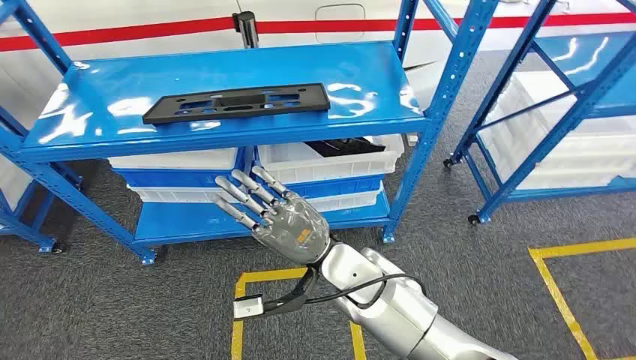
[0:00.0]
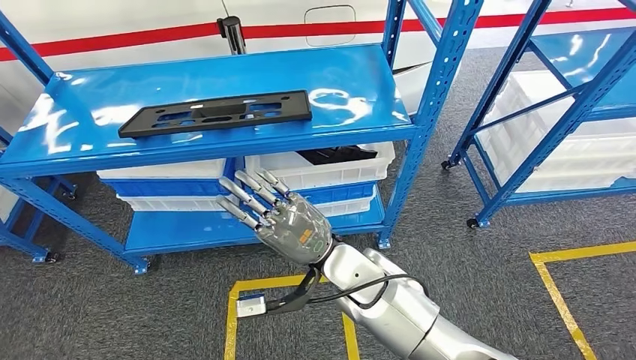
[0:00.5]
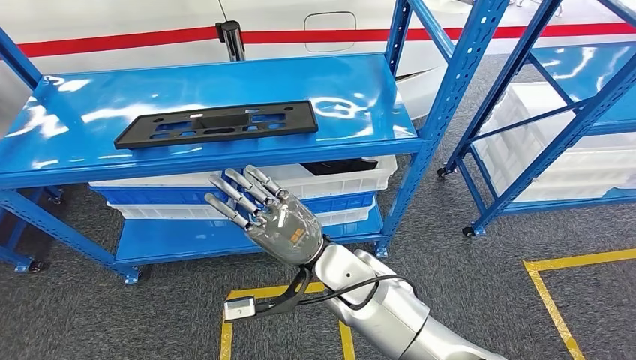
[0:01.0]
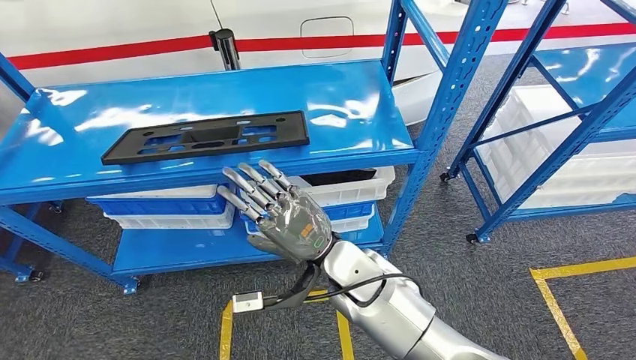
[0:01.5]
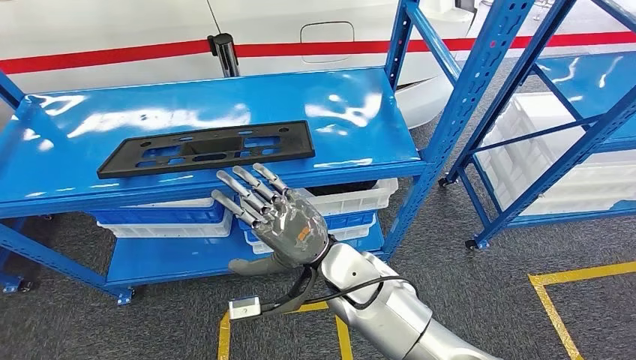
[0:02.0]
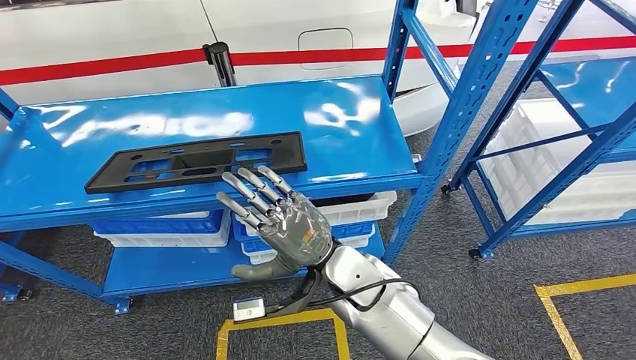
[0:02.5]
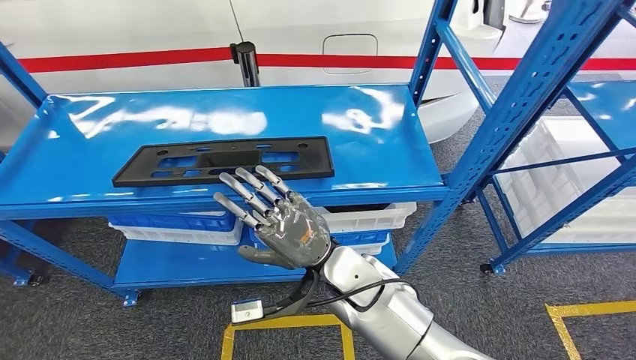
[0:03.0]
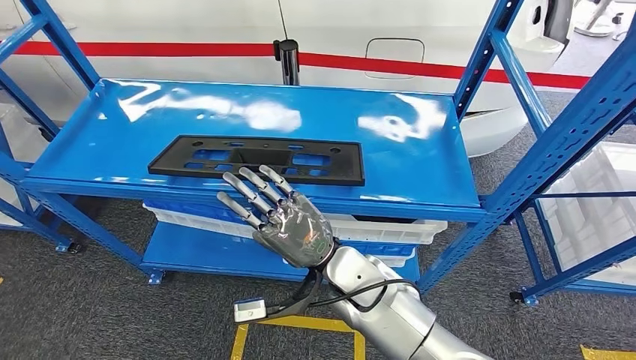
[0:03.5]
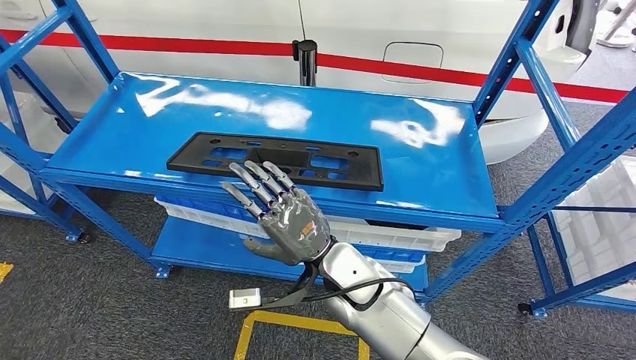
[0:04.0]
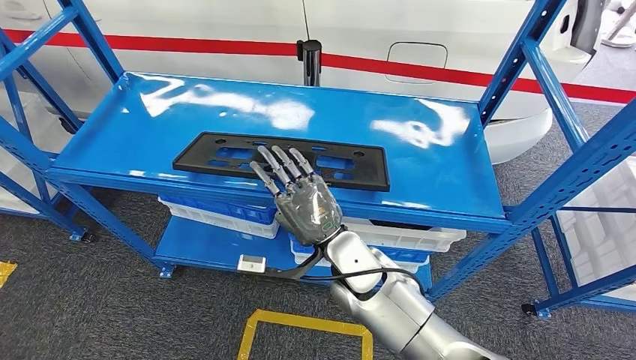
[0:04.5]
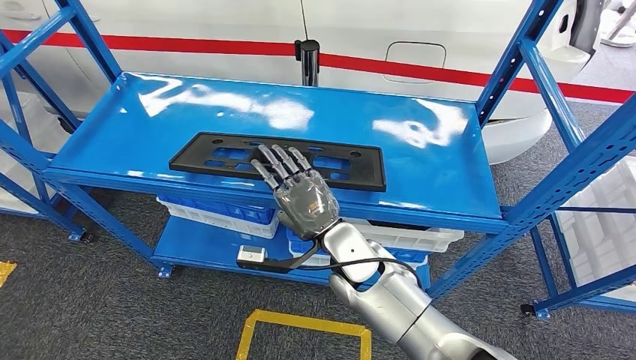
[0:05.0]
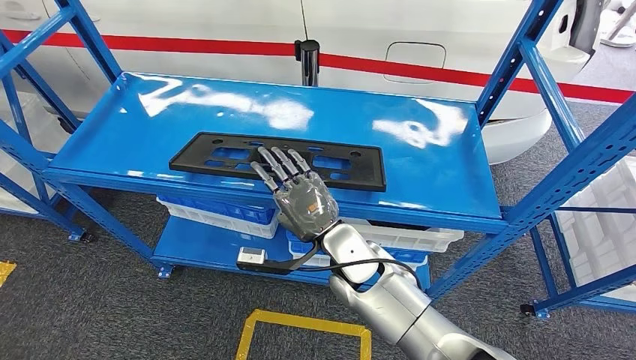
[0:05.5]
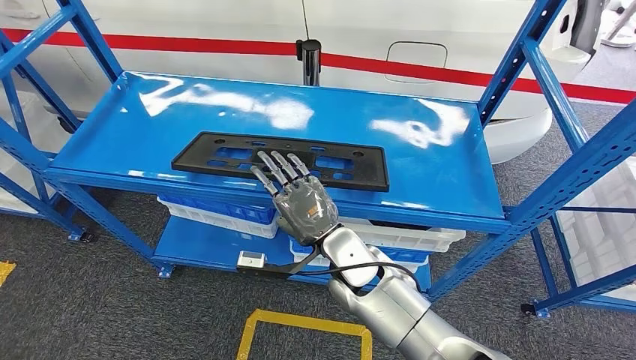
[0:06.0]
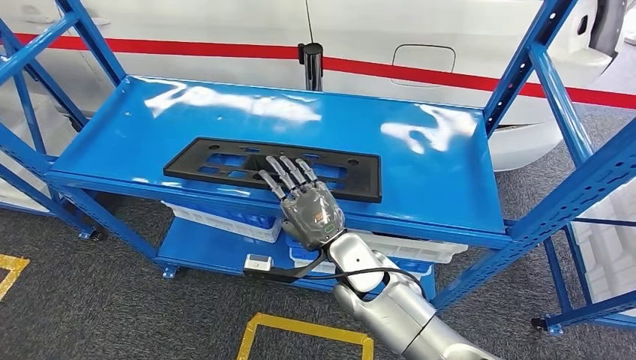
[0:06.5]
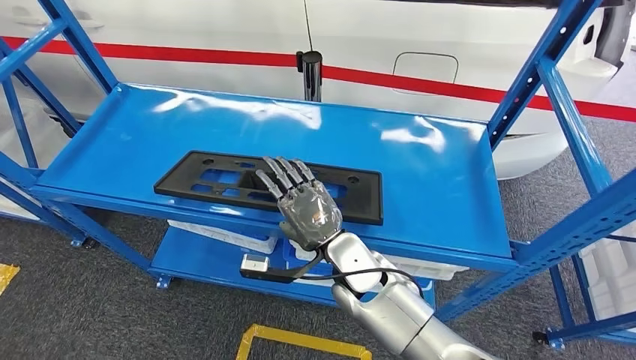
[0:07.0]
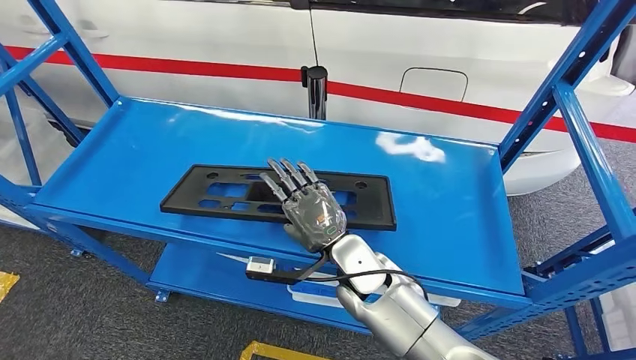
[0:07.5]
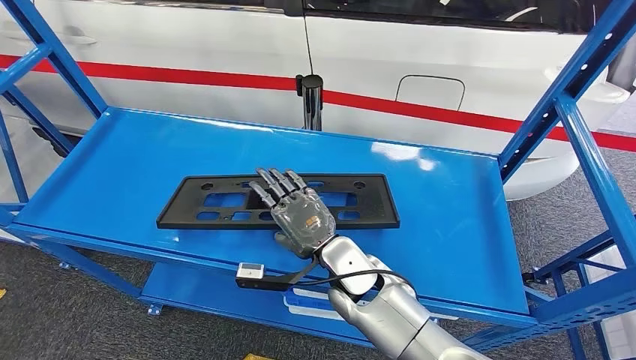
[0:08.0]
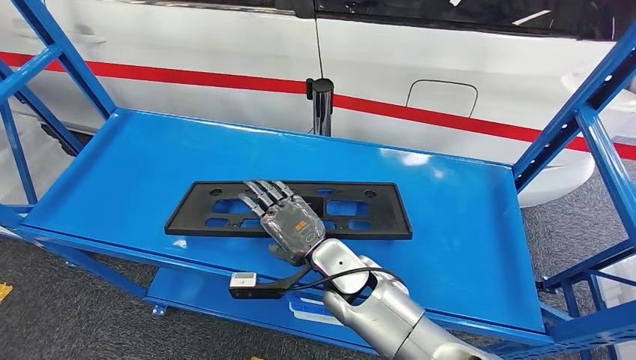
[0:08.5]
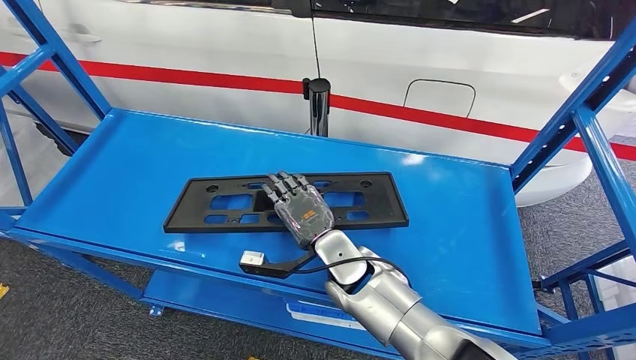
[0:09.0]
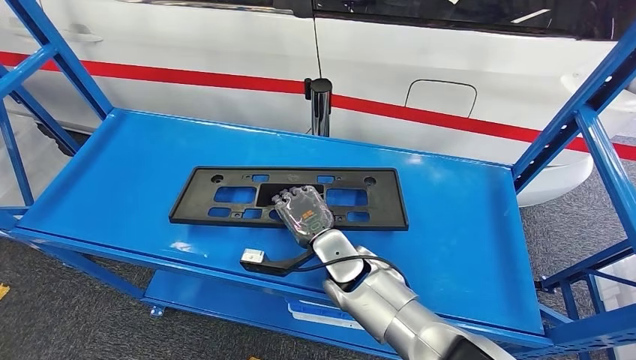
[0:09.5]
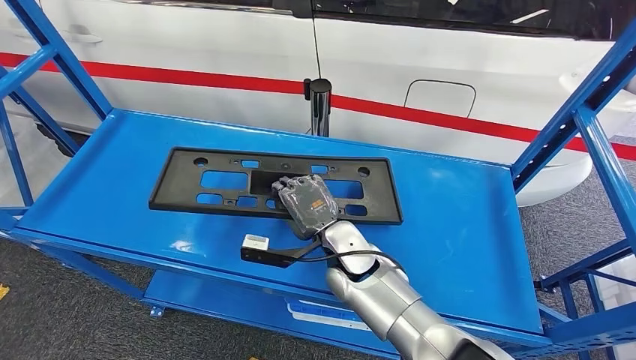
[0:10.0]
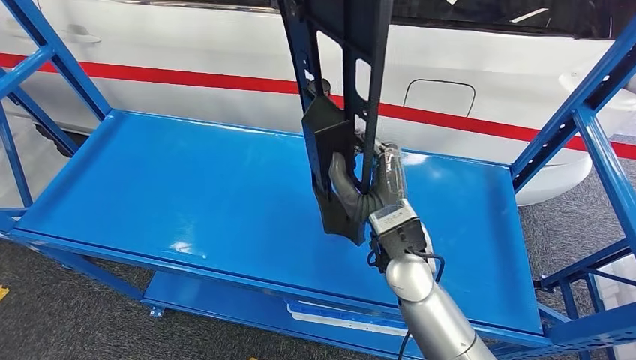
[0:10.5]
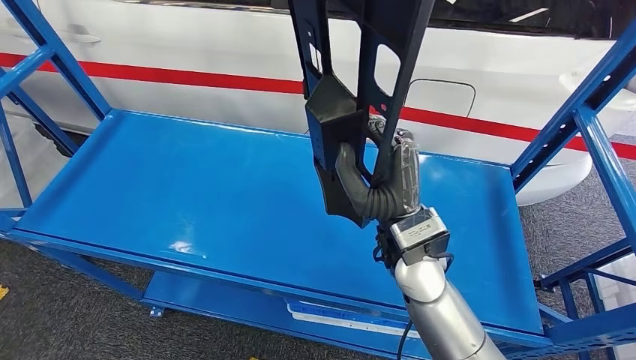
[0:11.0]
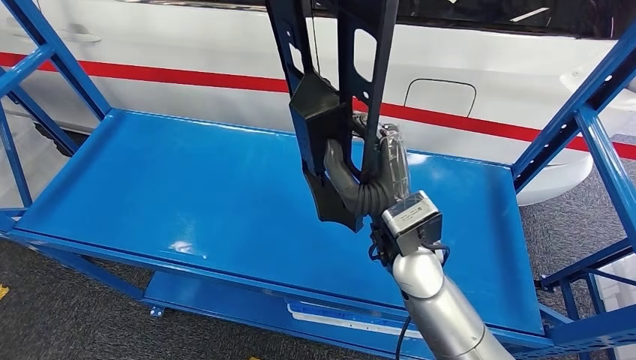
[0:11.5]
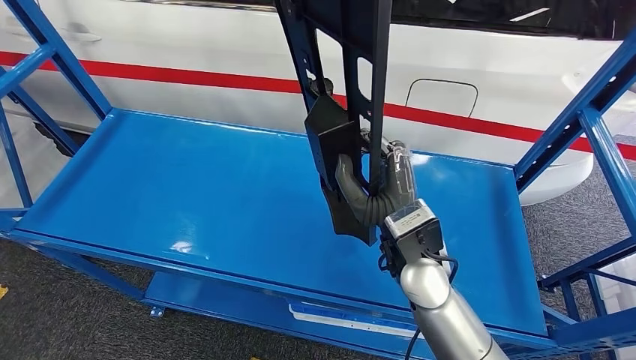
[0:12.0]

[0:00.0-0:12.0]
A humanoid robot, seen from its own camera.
0:04.0 to 0:06.0: There are only small adjustments of the hands.

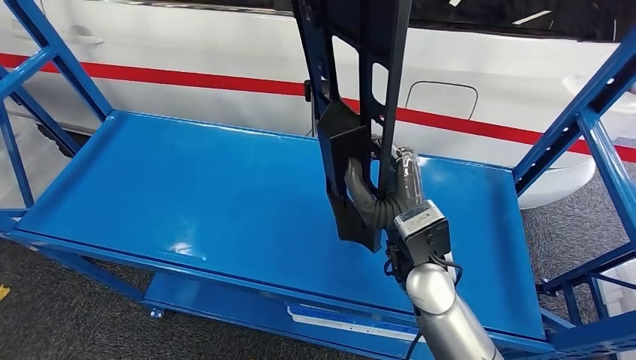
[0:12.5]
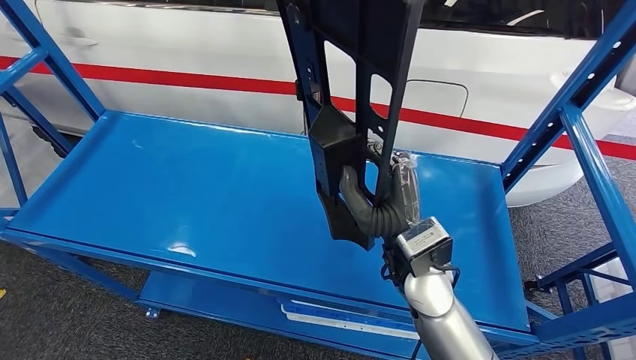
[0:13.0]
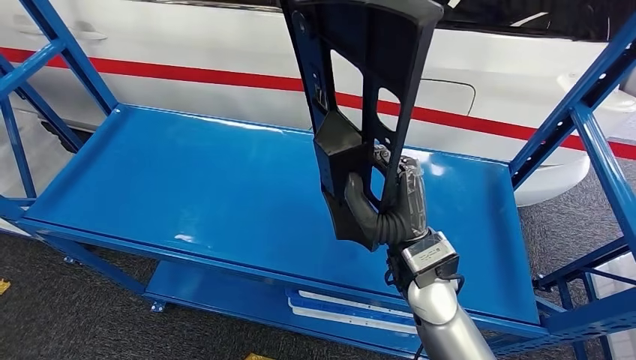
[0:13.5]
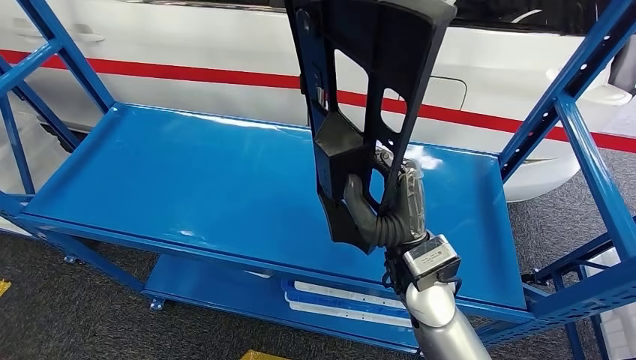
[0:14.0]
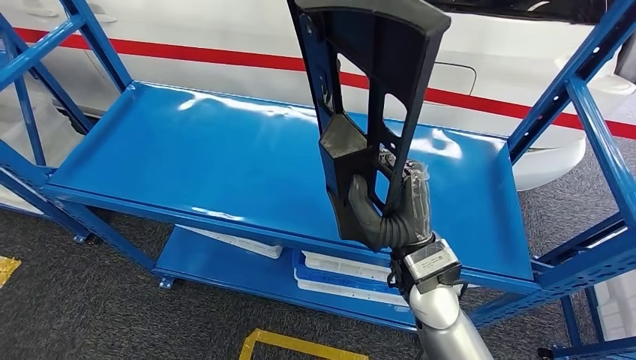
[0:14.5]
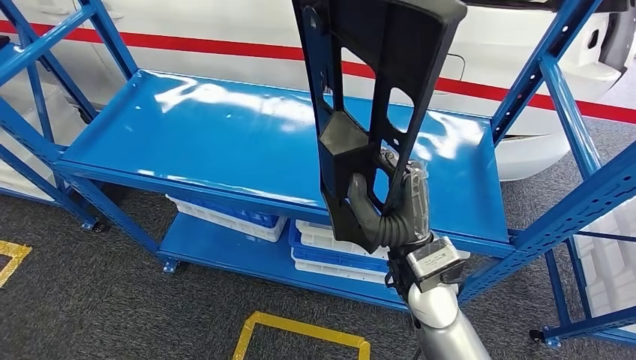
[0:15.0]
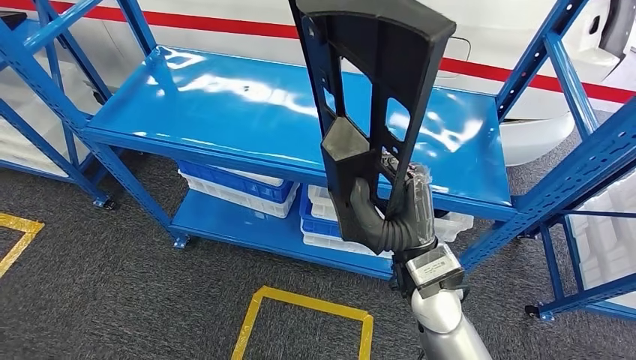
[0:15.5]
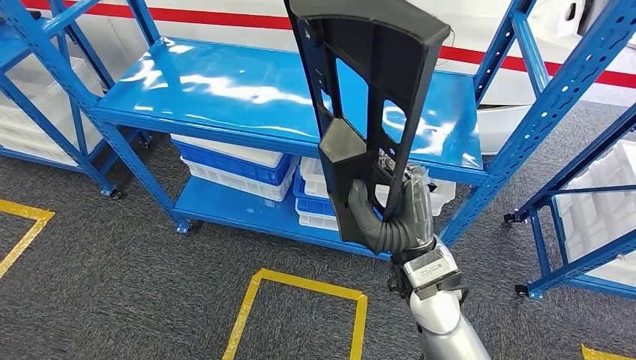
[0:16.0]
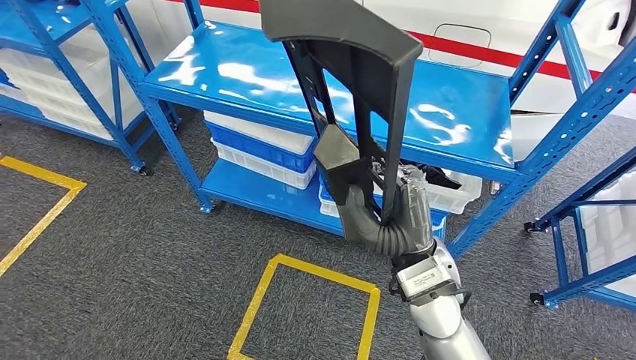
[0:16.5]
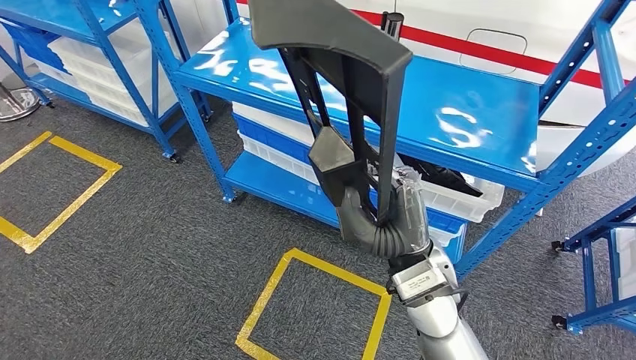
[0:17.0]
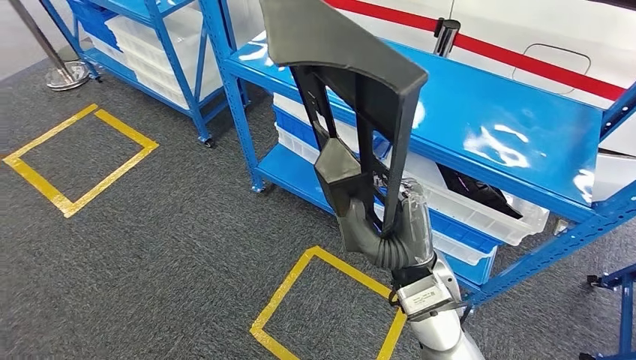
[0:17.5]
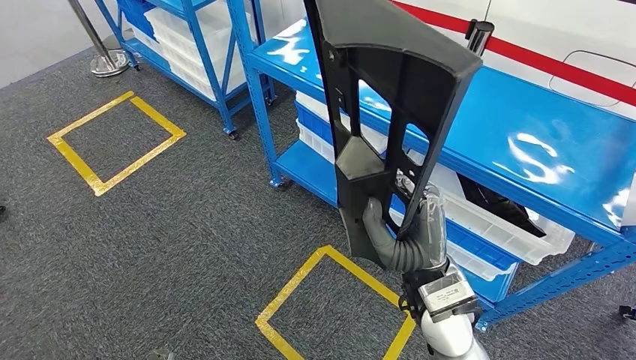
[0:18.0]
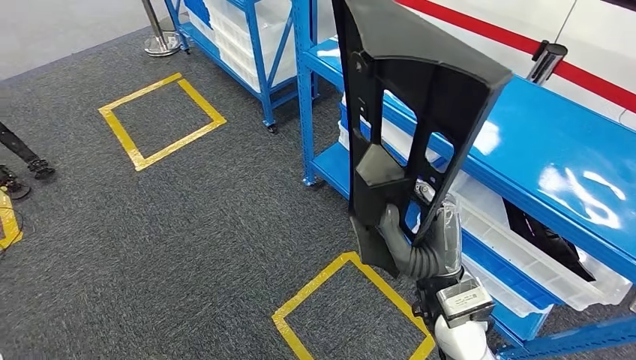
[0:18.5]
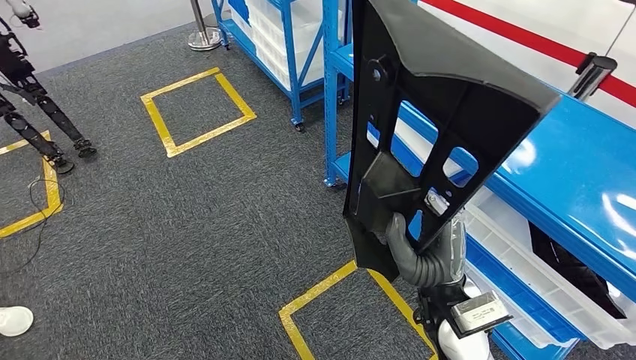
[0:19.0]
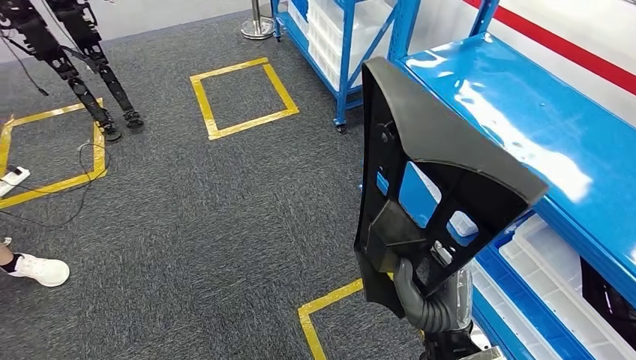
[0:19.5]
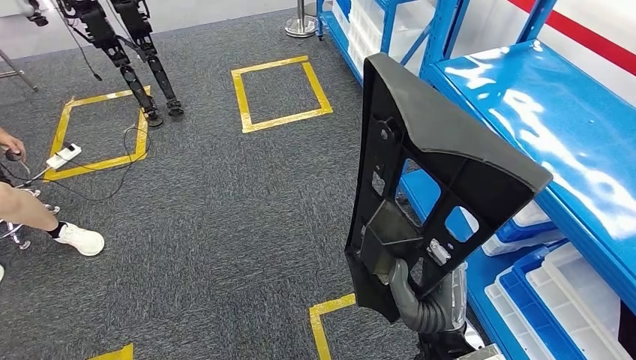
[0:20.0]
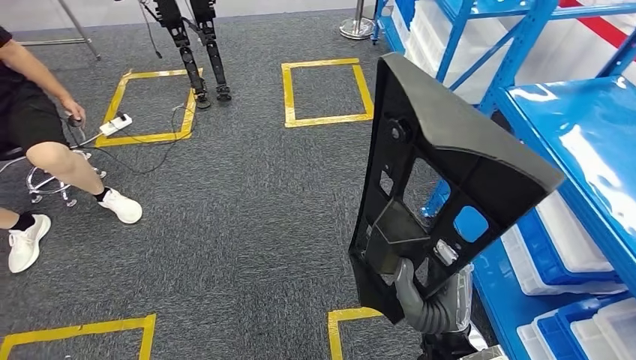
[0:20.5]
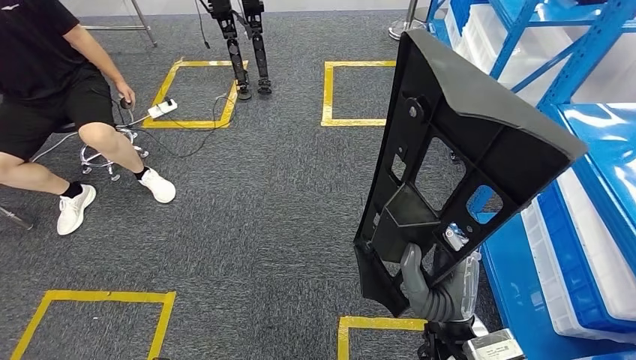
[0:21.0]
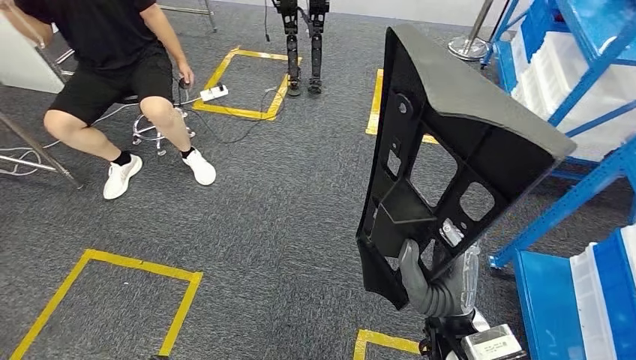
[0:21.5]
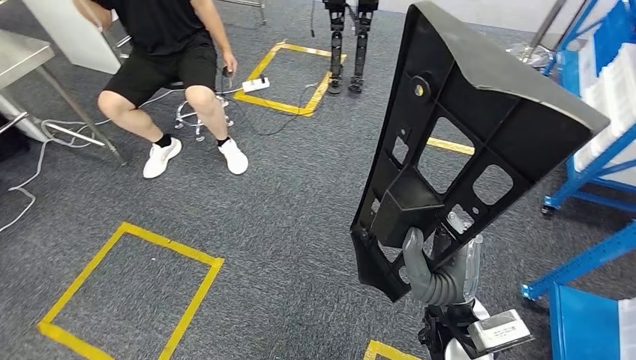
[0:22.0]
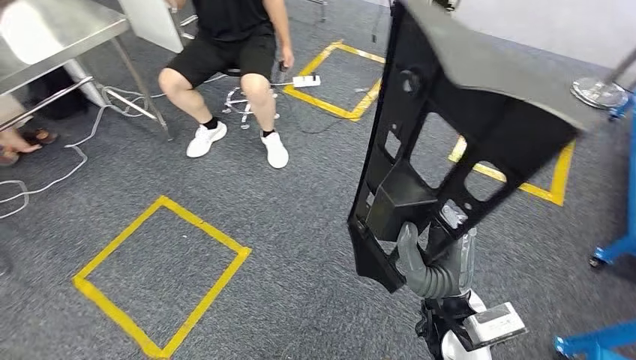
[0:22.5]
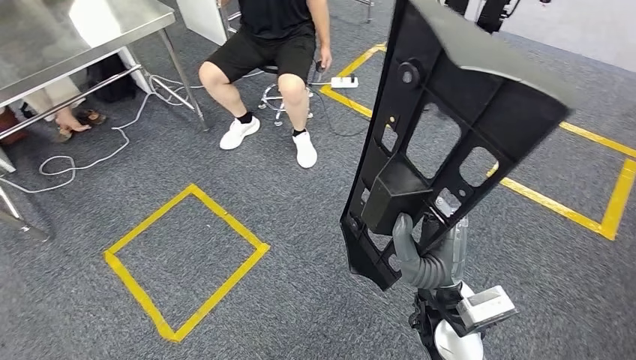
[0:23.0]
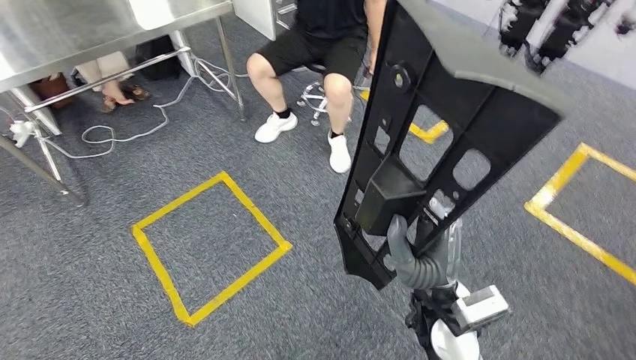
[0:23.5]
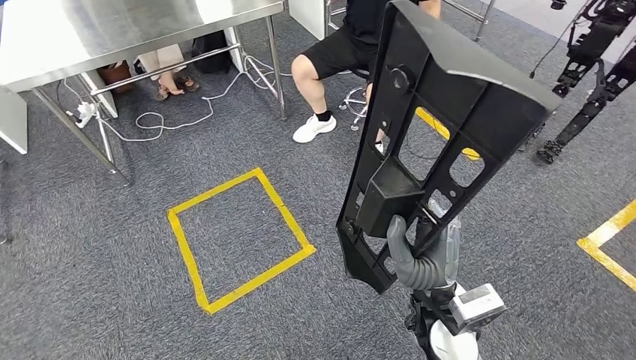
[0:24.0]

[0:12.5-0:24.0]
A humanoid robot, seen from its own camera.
Step, 0:12.5 to 0:14.5: Pick up the large material from the shelf.
